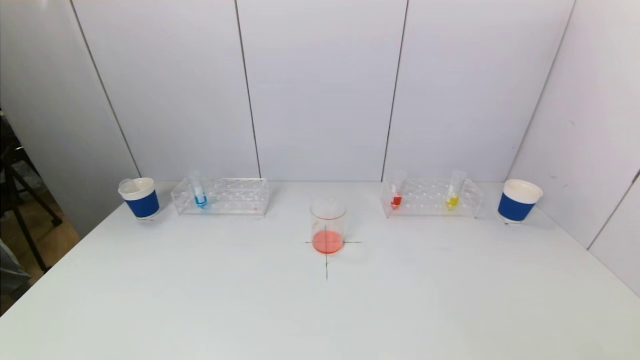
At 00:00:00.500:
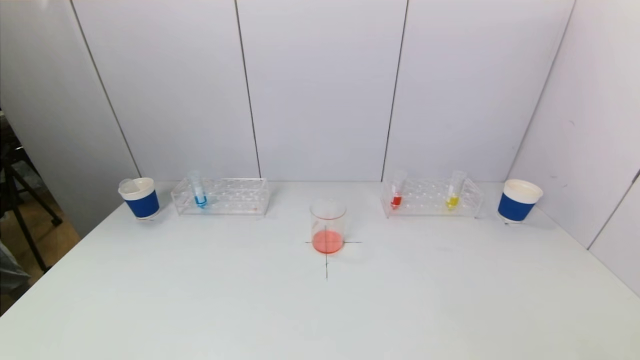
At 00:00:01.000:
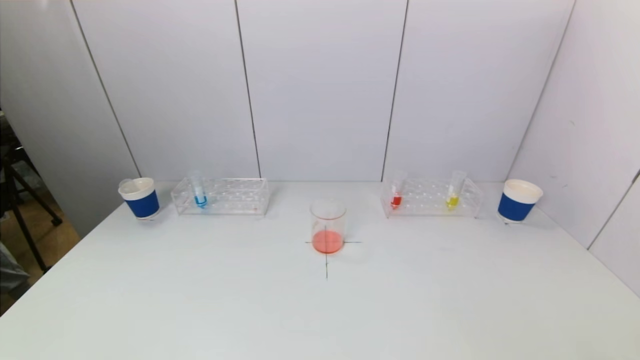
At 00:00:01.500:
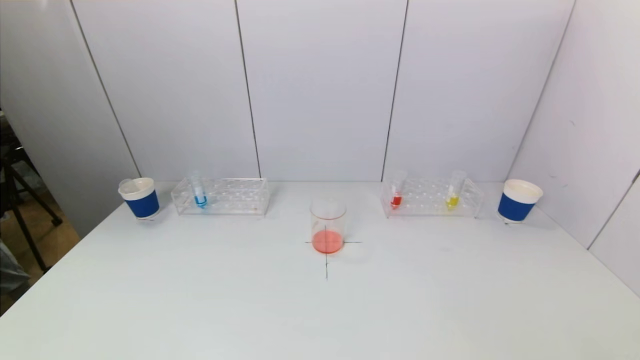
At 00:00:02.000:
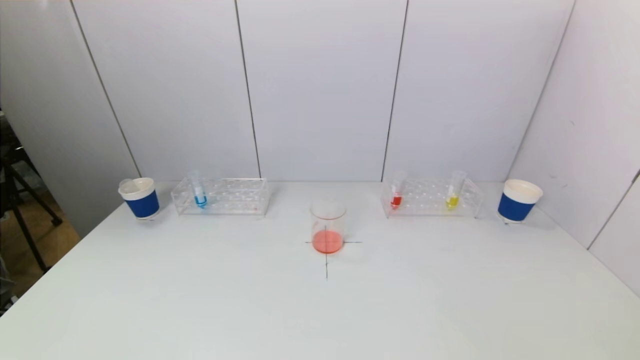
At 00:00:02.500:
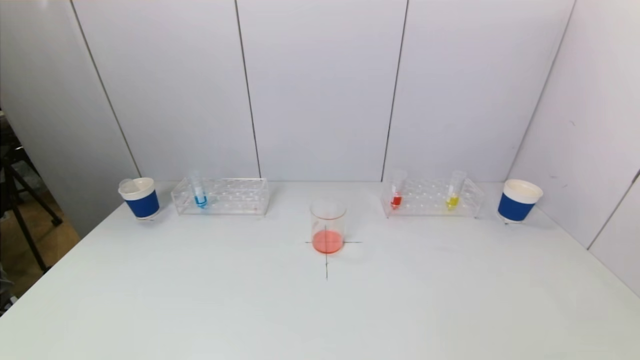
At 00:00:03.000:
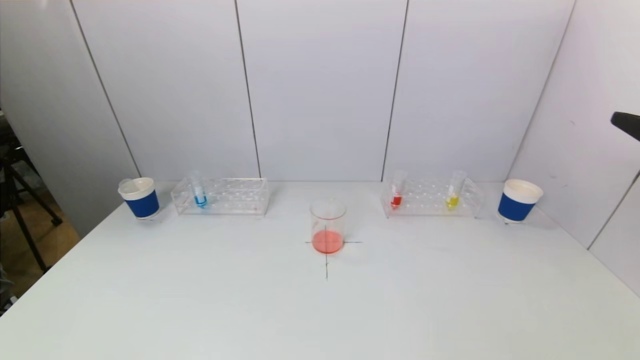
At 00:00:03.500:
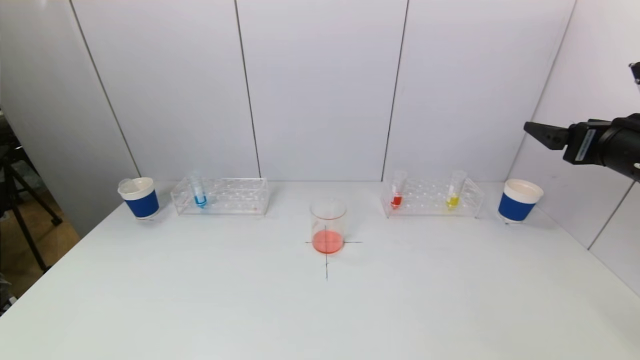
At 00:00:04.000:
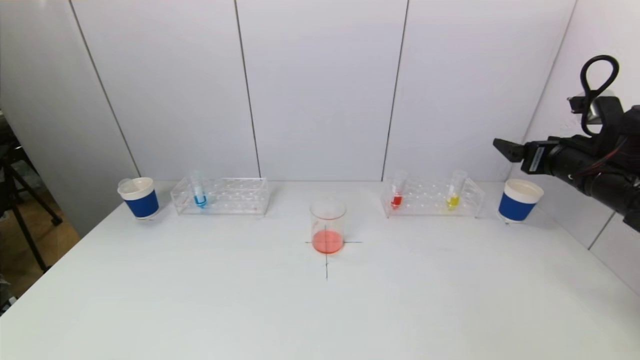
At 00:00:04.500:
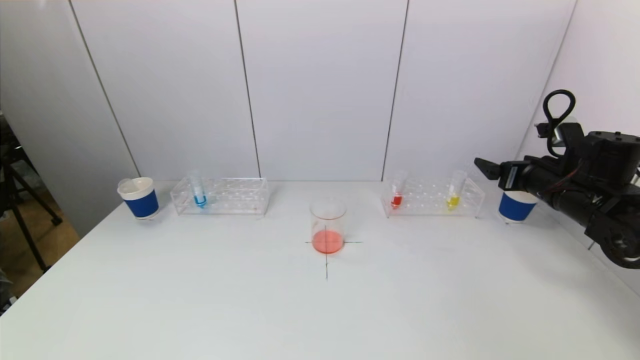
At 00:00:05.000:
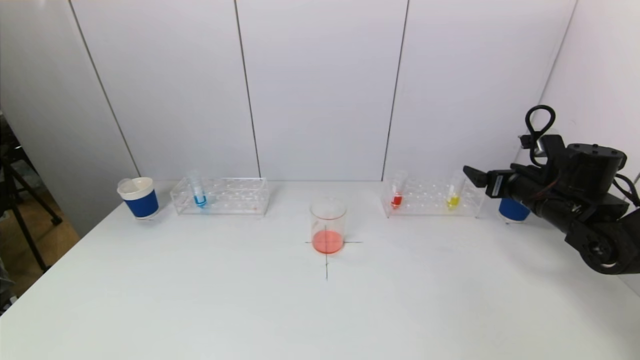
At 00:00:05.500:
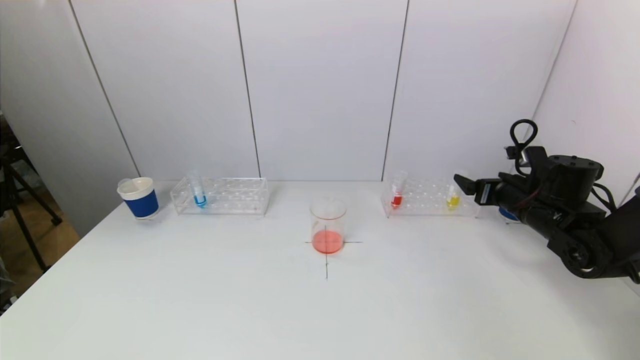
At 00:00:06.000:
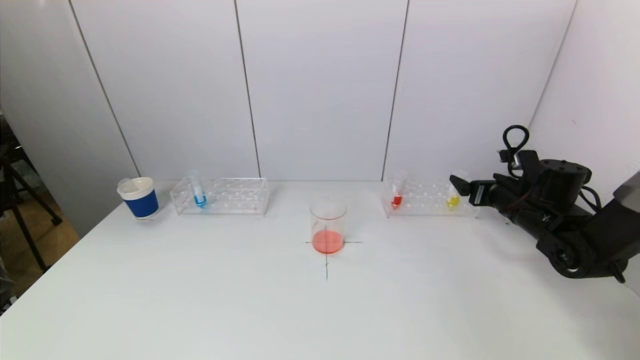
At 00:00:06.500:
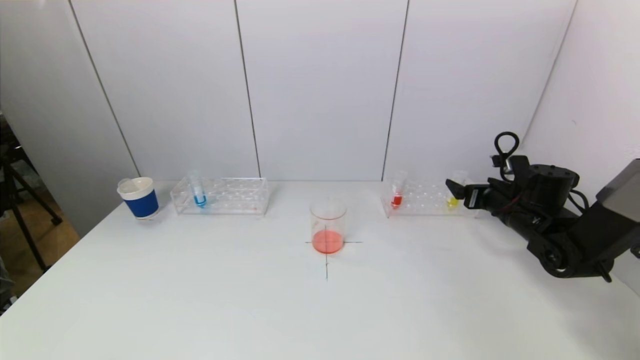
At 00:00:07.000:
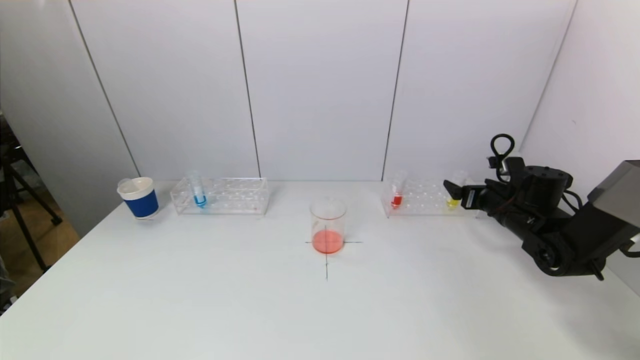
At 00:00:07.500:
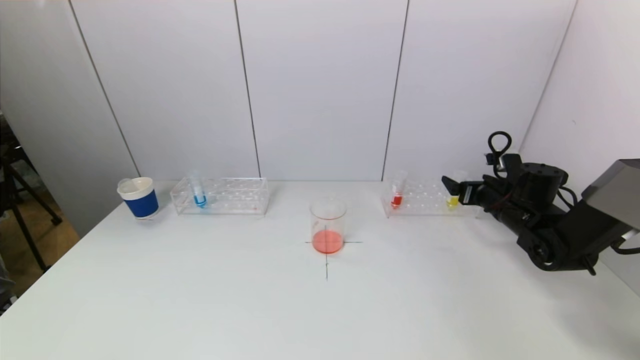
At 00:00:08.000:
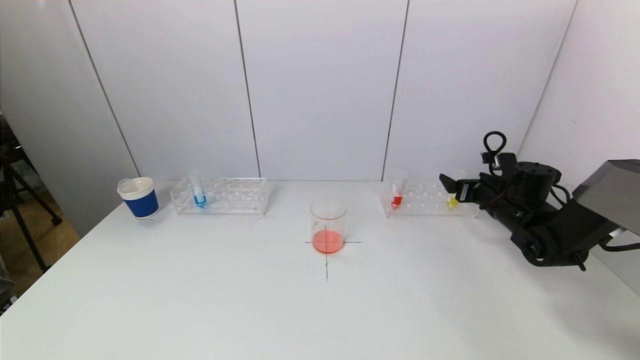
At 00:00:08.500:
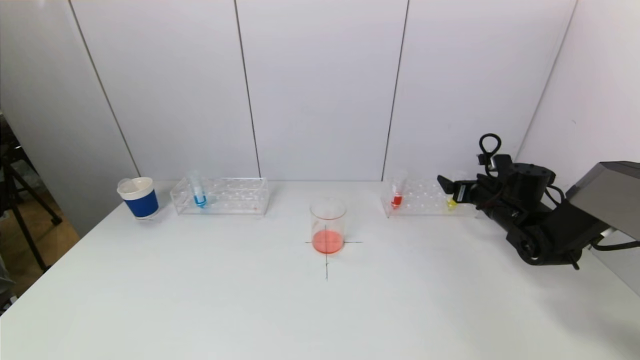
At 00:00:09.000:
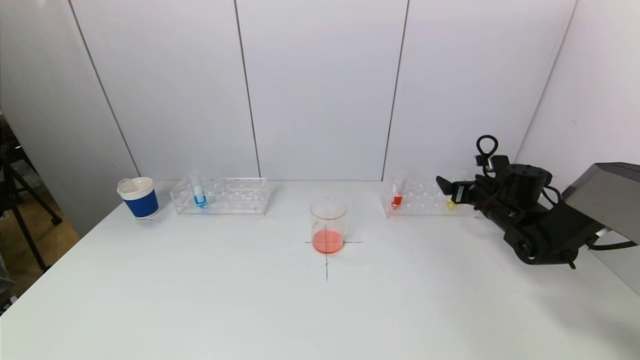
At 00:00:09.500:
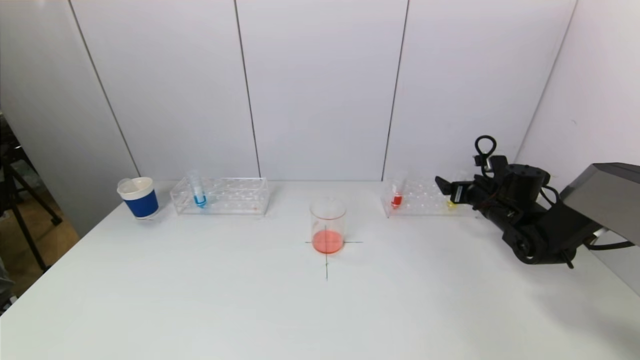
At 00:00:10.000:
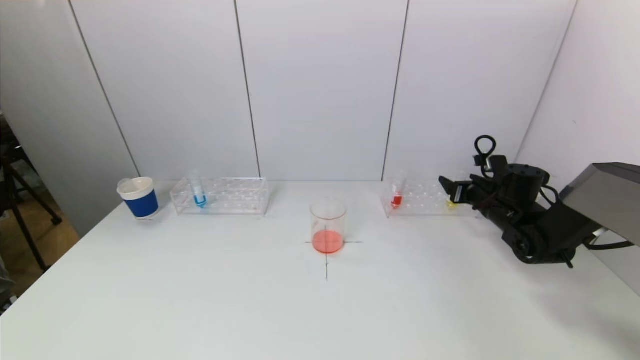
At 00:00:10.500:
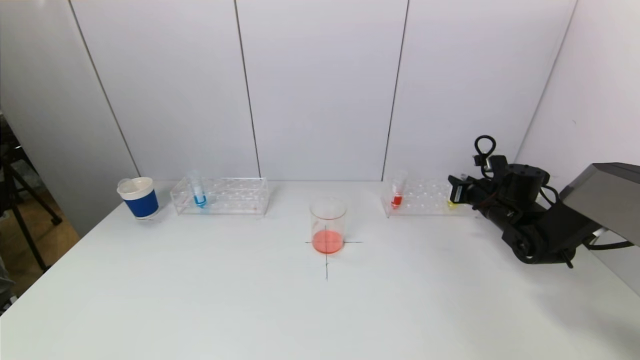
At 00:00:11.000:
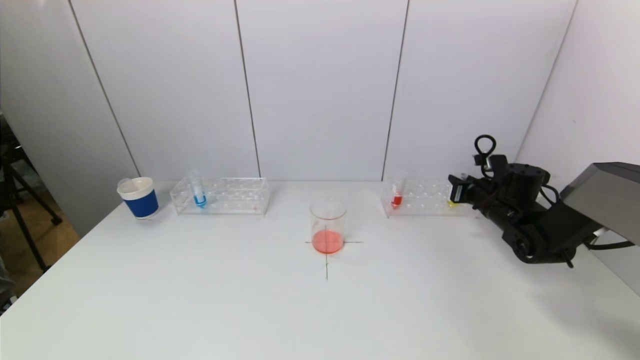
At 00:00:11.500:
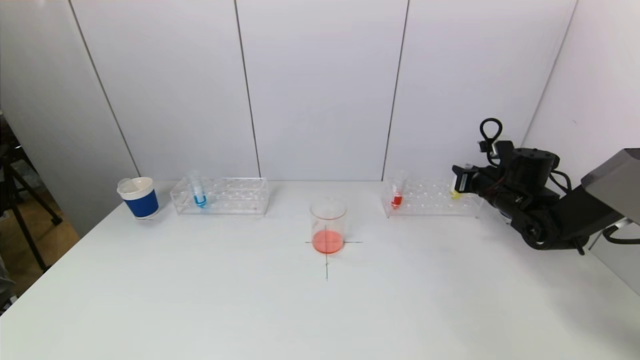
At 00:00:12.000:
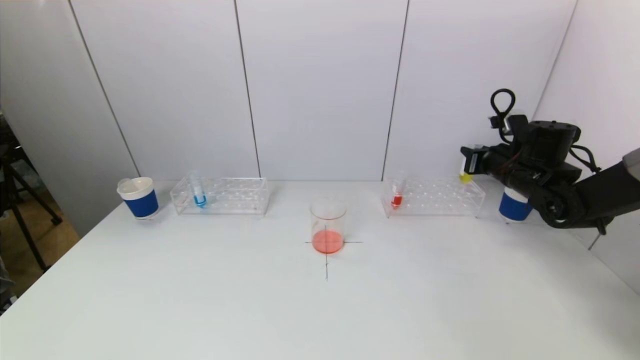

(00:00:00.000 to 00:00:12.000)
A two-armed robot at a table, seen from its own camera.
Task of the whole recording: pick up a test tube with pigment on left test tube rack and a test tube with pigment on right test tube rack by grippers and pour them into the beaker.
Step, 00:00:00.000 - 00:00:10.000: Grasp the yellow reagent with the right gripper.
00:00:02.000 - 00:00:04.000: The right gripper goes roughly 35 cm forward.
00:00:04.000 - 00:00:06.000: The right gripper moves downward and forward, about 10 cm.
00:00:06.000 - 00:00:08.000: The grippers make only small movements.
00:00:08.000 - 00:00:10.000: The grippers move only a little.
00:00:10.000 - 00:00:12.000: The right gripper moves upward, about 10 cm, and closes up.

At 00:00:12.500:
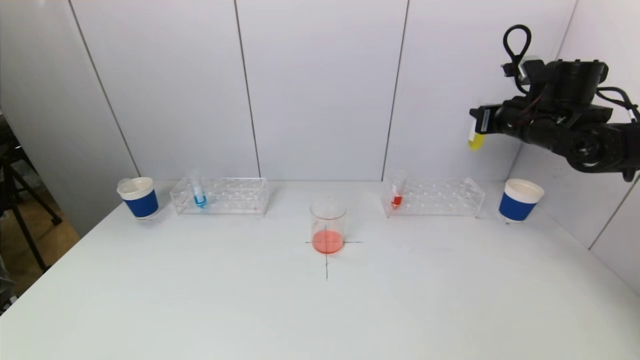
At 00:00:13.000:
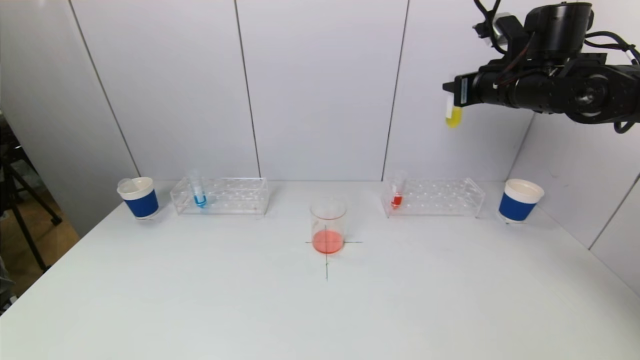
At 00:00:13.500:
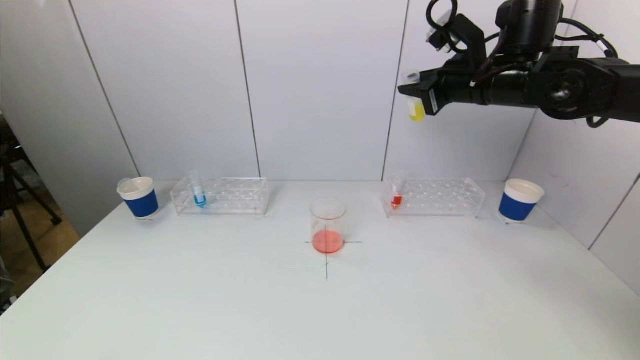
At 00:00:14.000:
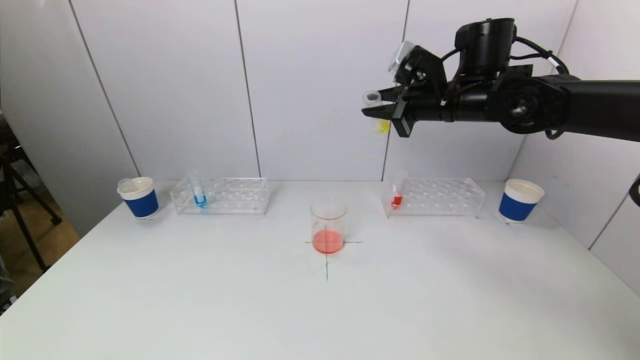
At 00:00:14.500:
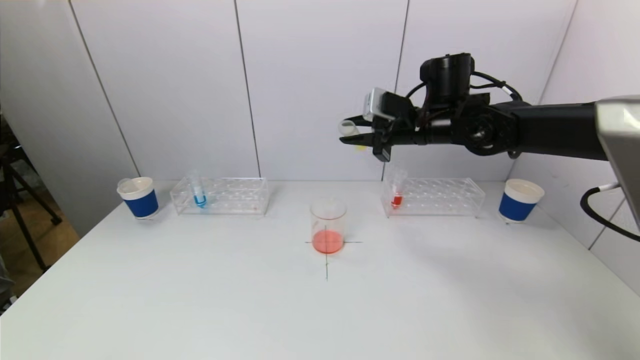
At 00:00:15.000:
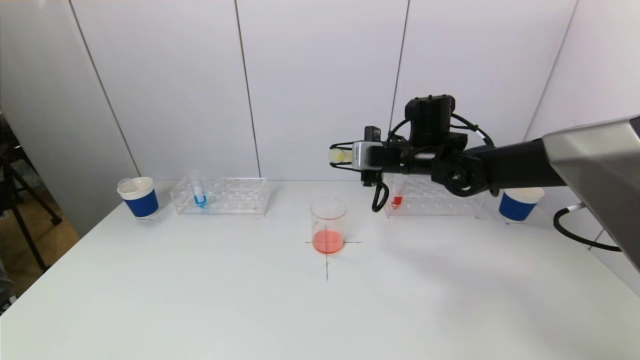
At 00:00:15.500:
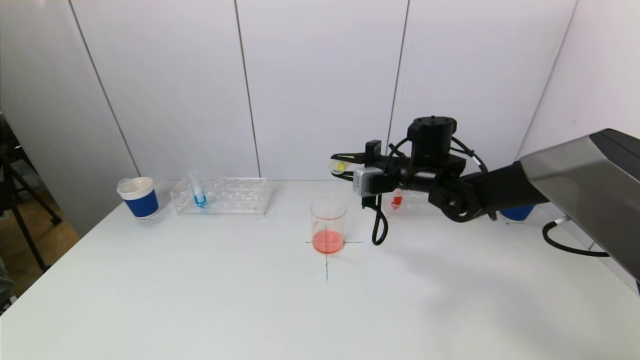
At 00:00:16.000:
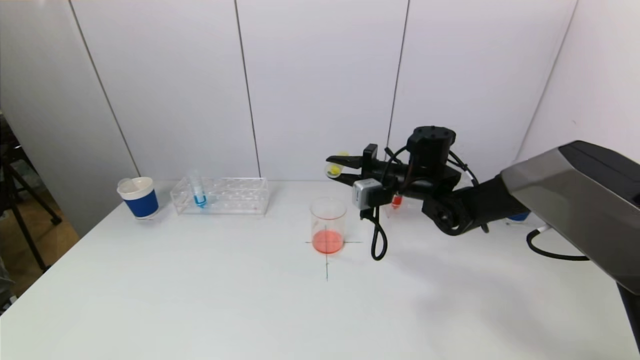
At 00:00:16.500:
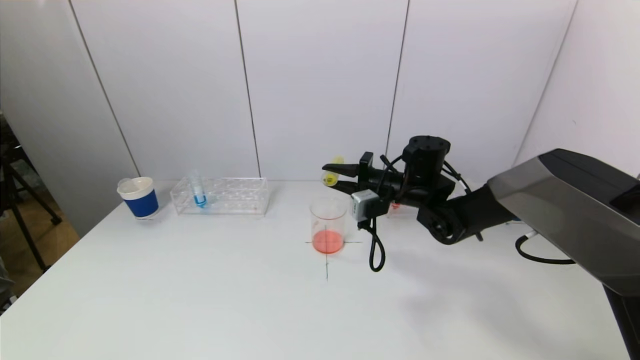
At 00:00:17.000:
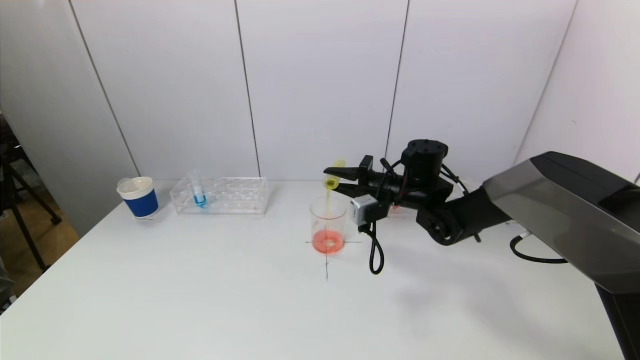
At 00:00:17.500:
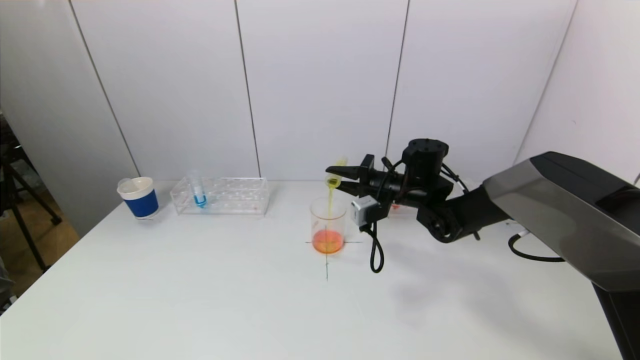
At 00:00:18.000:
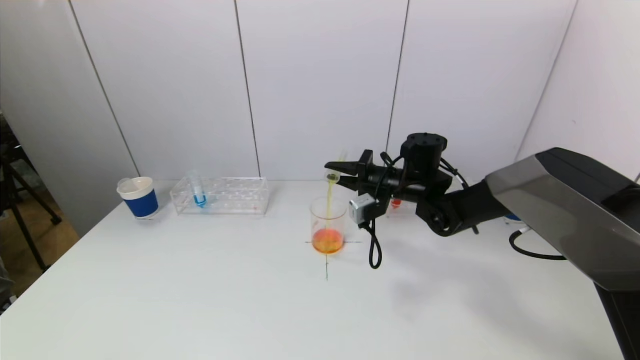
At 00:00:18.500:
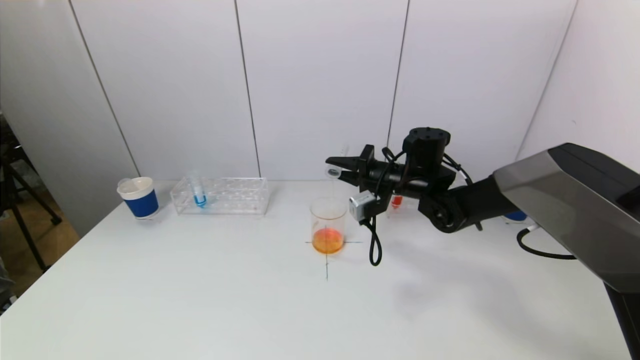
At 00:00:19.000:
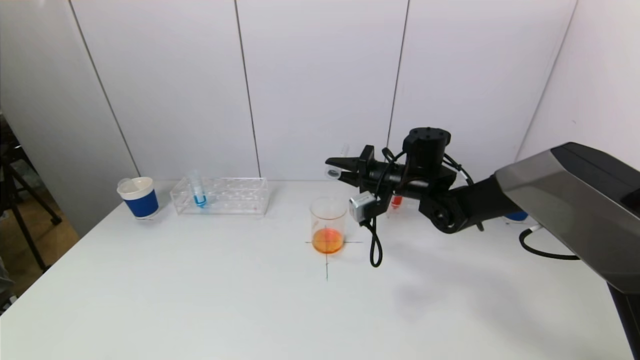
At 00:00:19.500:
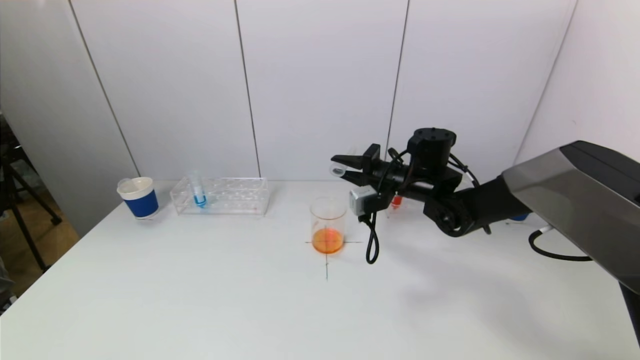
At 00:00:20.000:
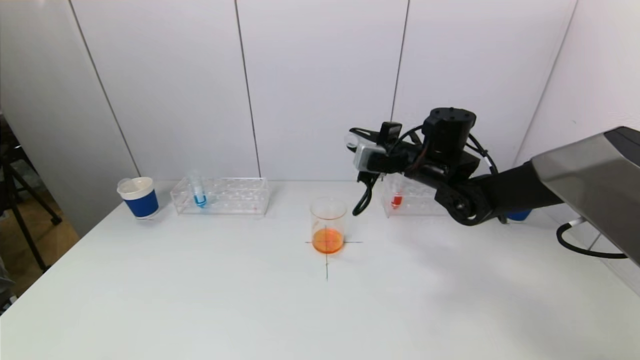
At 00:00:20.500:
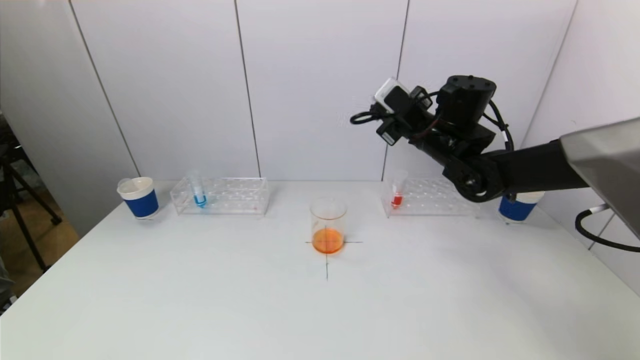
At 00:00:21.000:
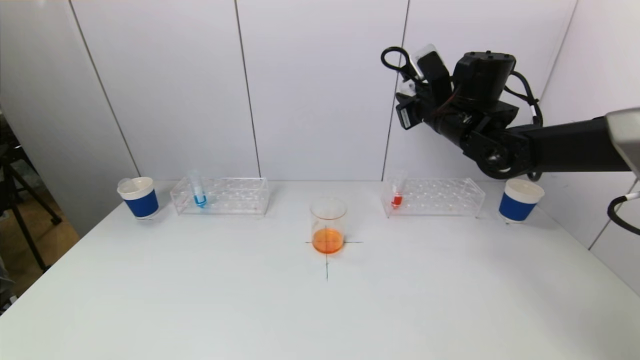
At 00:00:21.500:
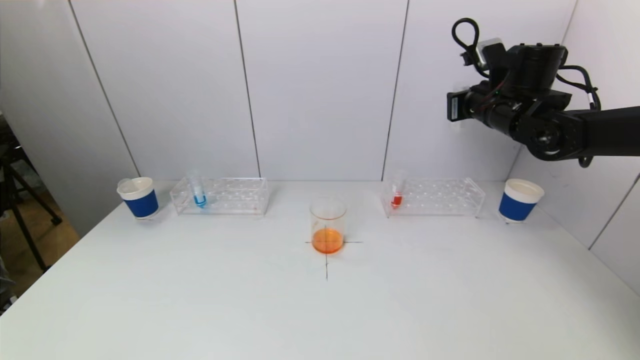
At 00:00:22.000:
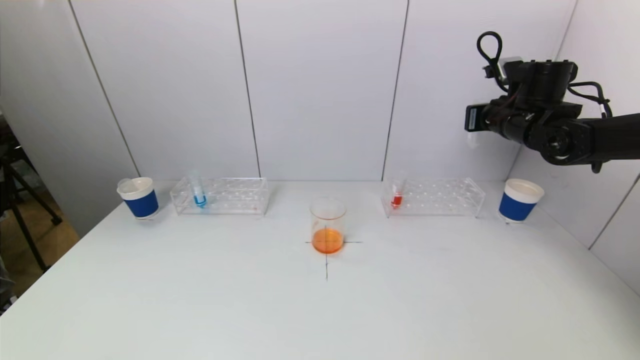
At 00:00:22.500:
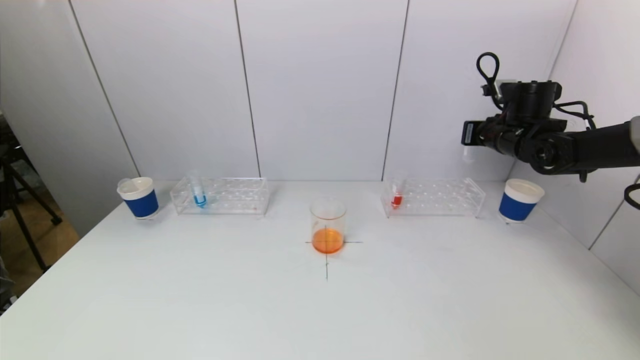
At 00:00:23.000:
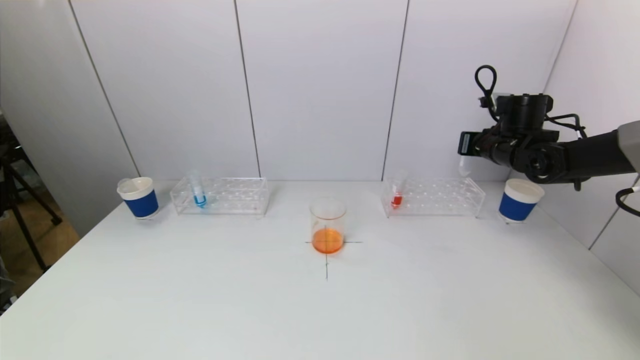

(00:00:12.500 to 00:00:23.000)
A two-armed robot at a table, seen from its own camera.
Task of the whole recording: pick up a test tube with pigment on left test tube rack and a test tube with pigment on right test tube rack by grippers and pour them into the beaker.
Step, 00:00:12.500 - 00:00:19.500: Pour the yellow reagent into the graduated cylinder with the right gripper.
00:00:12.500 - 00:00:14.500: The right gripper heads to the left, covering approximately 15 cm.
00:00:14.500 - 00:00:16.500: The right gripper shifts approximately 10 cm downward.
00:00:16.500 - 00:00:19.000: The grippers stay close to where they were, moving slightly.
00:00:19.000 - 00:00:21.000: The right gripper shifts roughly 15 cm upward and to the right.
00:00:21.000 - 00:00:23.000: The right gripper goes approximately 15 cm to the right and downward.